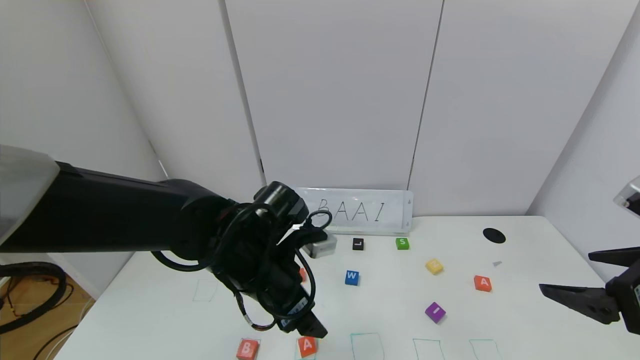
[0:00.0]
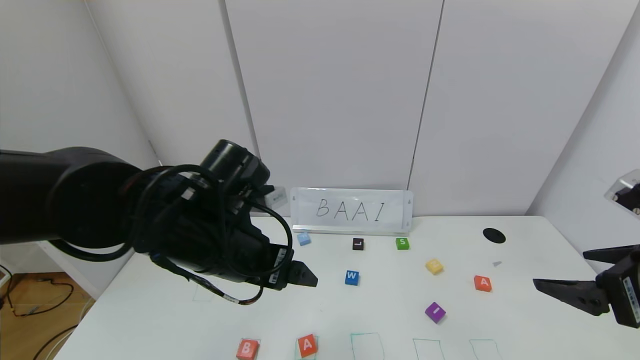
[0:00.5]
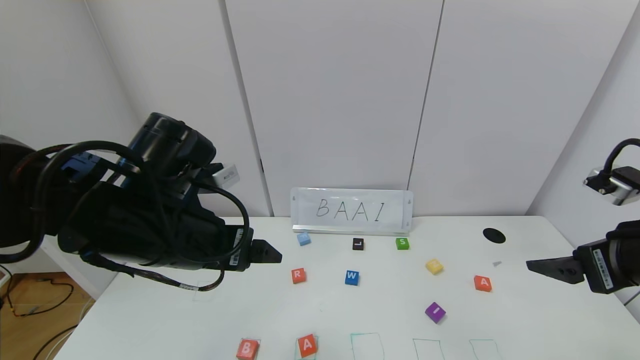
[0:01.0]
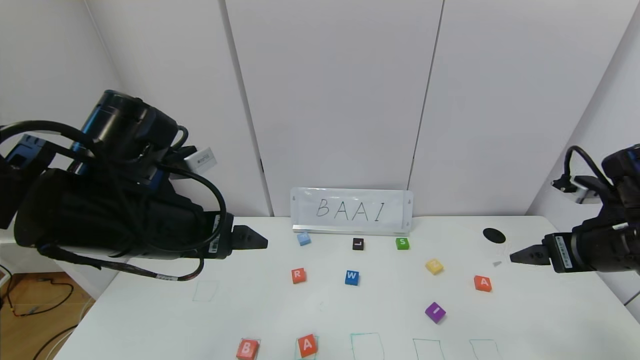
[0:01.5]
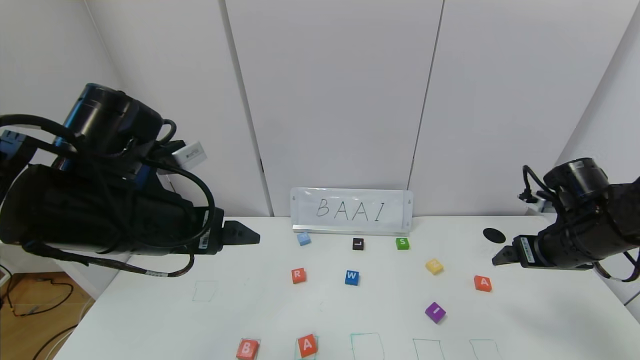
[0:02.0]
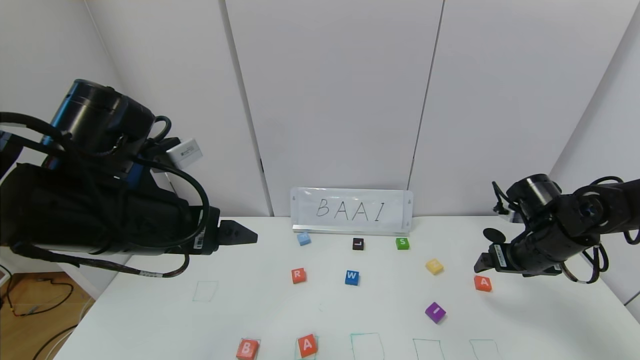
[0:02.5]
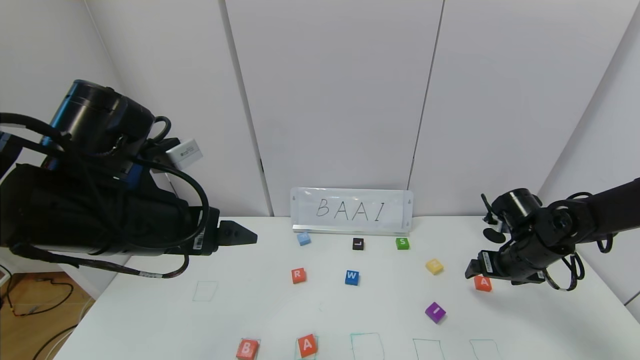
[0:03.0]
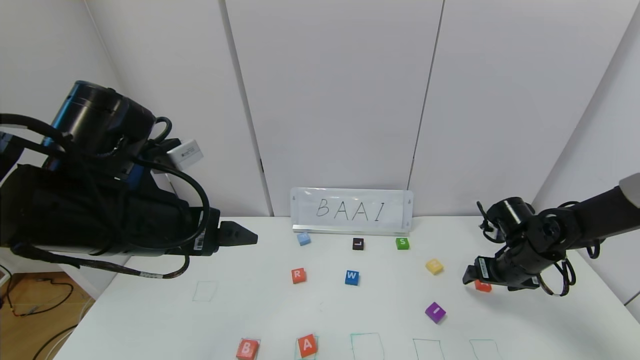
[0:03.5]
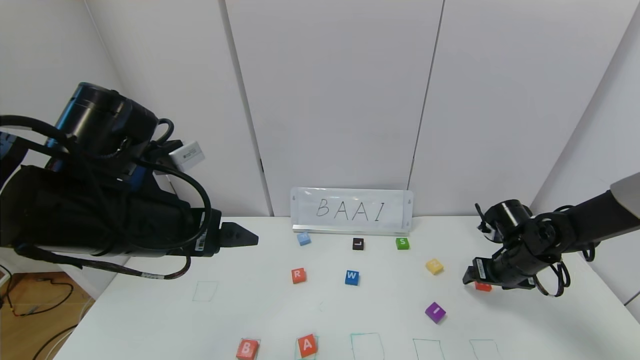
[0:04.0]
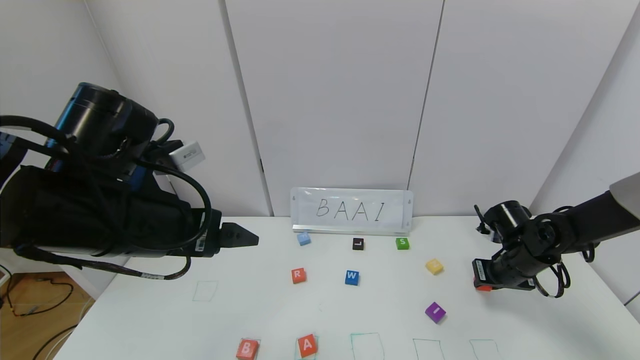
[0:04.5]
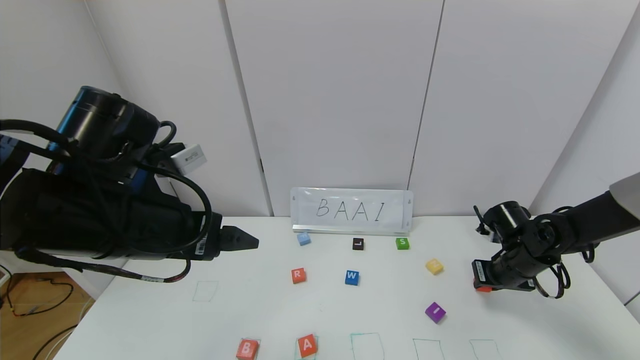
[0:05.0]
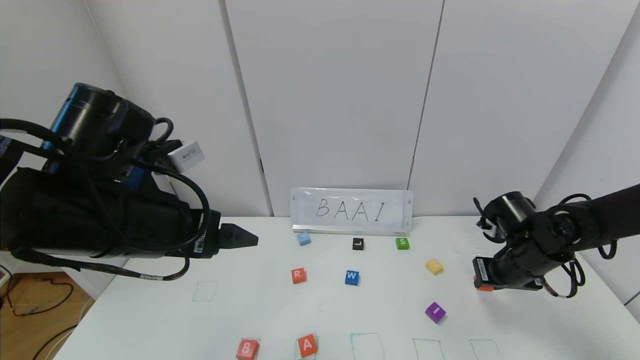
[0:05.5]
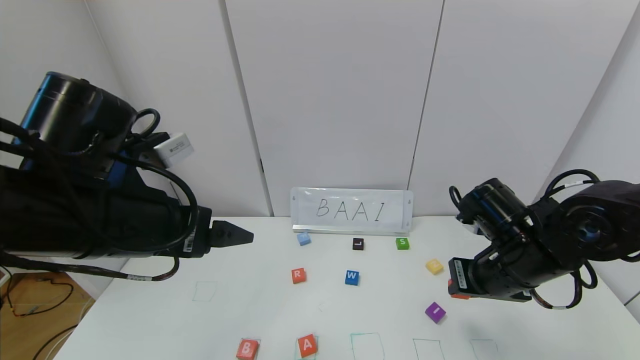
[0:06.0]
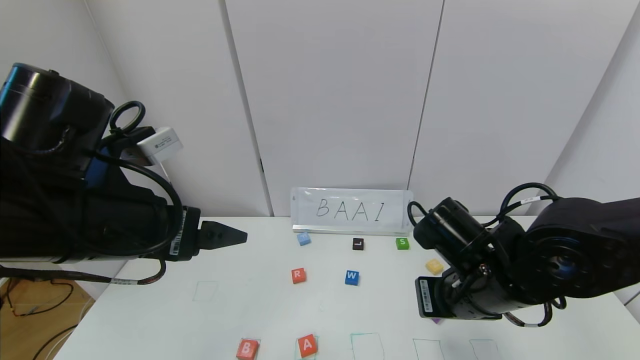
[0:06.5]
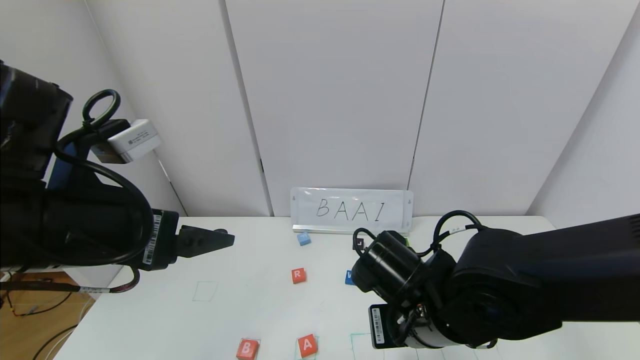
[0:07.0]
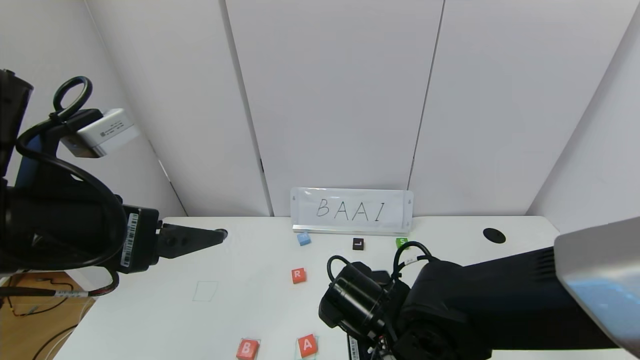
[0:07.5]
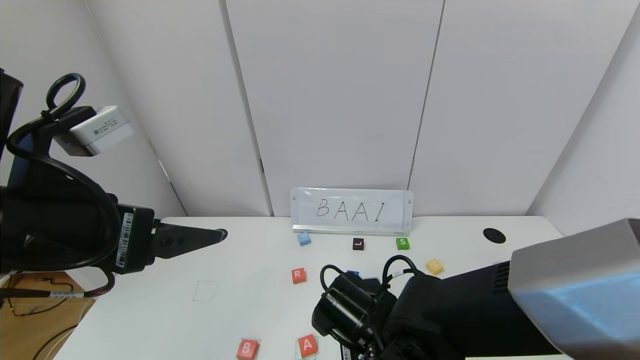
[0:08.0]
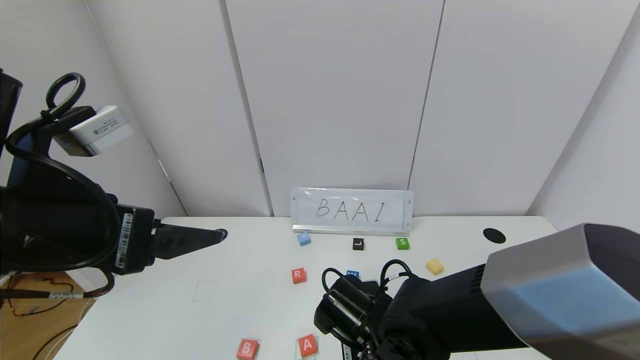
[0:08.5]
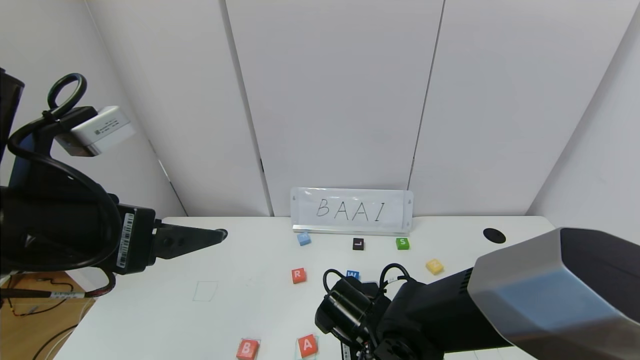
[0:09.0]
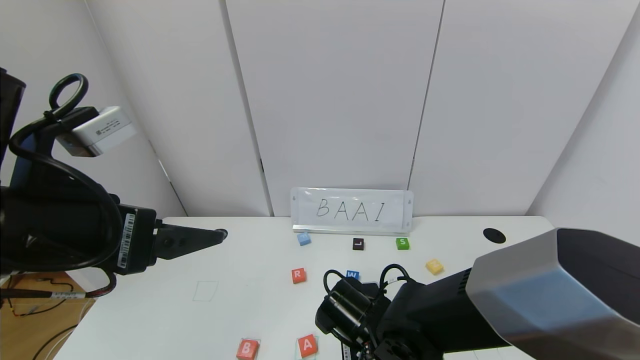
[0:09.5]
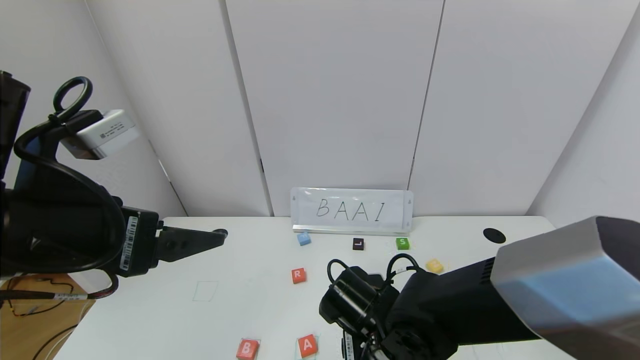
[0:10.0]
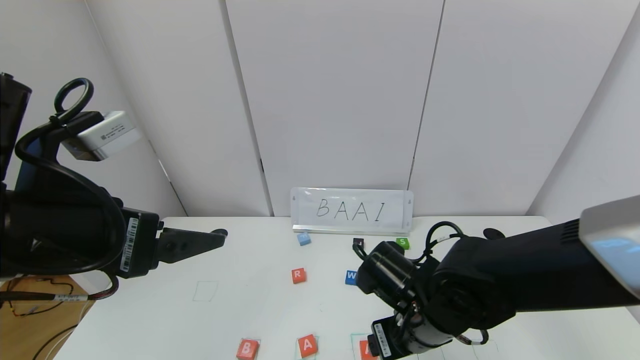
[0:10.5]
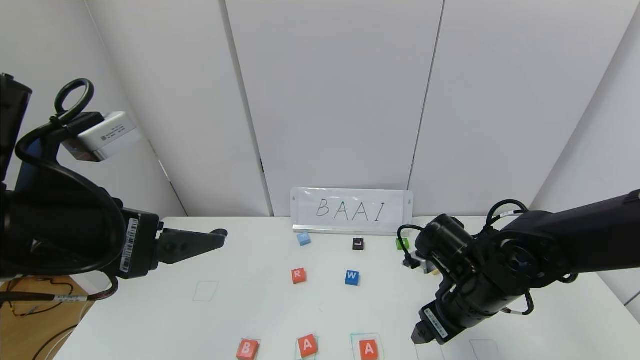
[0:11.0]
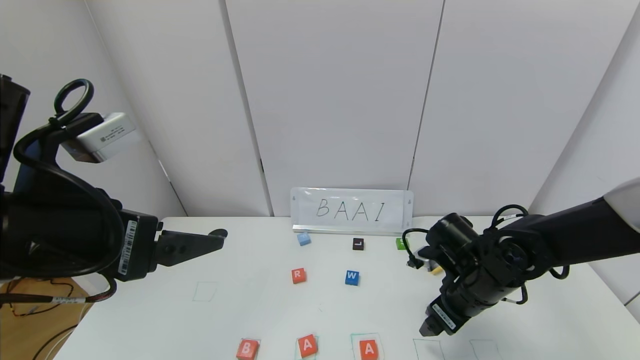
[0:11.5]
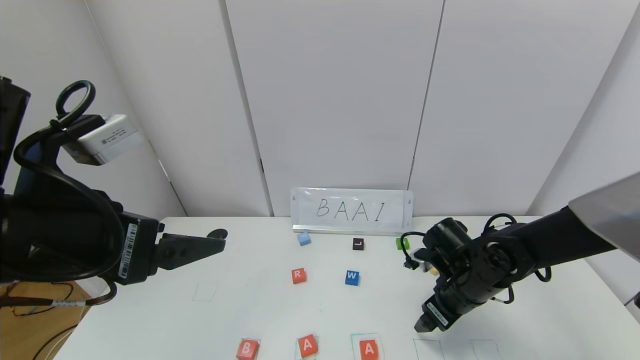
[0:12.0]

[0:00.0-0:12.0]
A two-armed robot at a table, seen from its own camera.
Task of the whole recording: use the gripper to find blocks with the letters b, a, a, and i on the table and arrange them into BAAI, then find r and N and turn the arranged baai into brian.
Step, 0:00.0 to 0:09.5: Place the second block A in the third location.
0:00.0 to 0:02.0: The left gripper shifts some 15 cm upward and to the left. Meanwhile the right gripper travels forward and downward by some 20 cm.
0:02.0 to 0:04.0: The right gripper is displaced downward and forward by approximately 10 cm.
0:04.0 to 0:06.0: The right gripper heads to the left, upward and backward, covering approximately 20 cm, and closes up.
0:06.0 to 0:08.0: The left gripper moves roughly 5 cm. The right gripper moves to the left and downward, roughly 20 cm.
0:08.0 to 0:10.0: The right gripper opens its fingers.
0:10.0 to 0:12.0: The right gripper heads to the right and forward, covering approximately 15 cm.

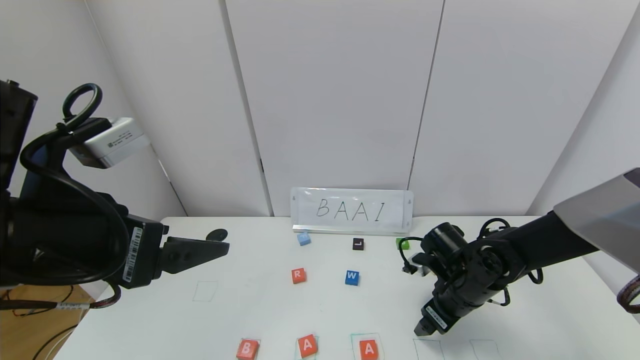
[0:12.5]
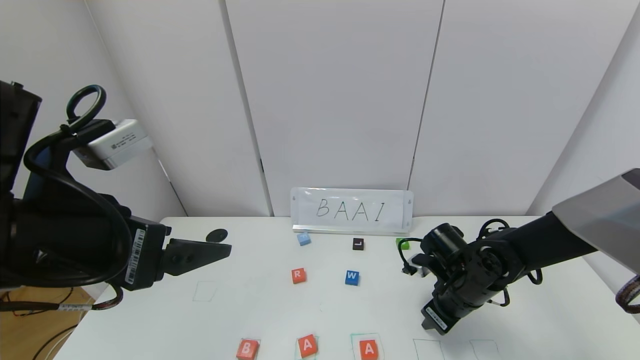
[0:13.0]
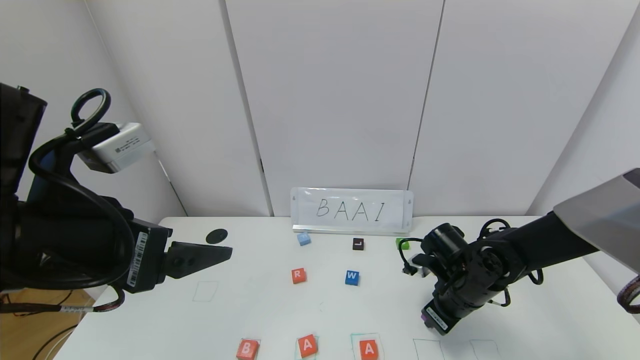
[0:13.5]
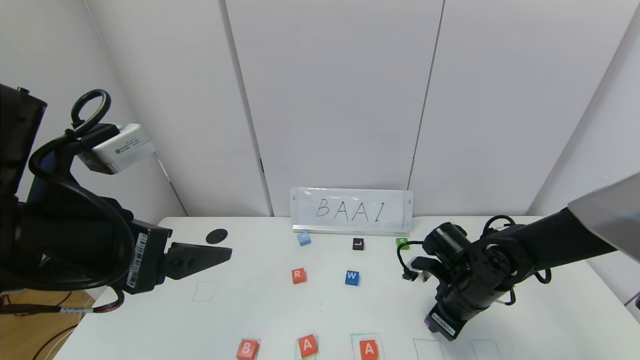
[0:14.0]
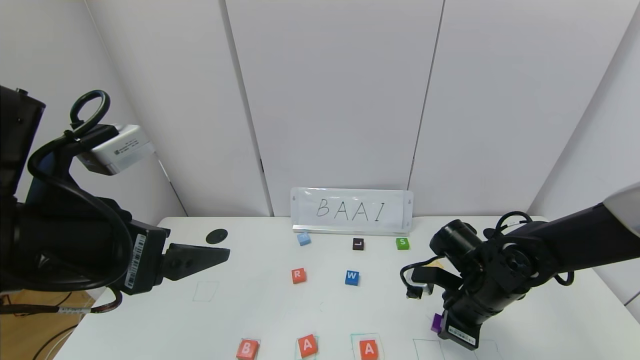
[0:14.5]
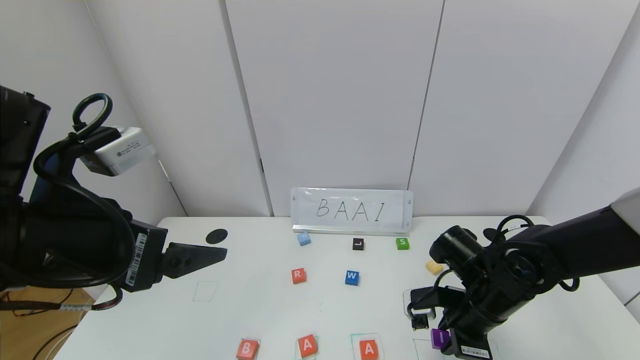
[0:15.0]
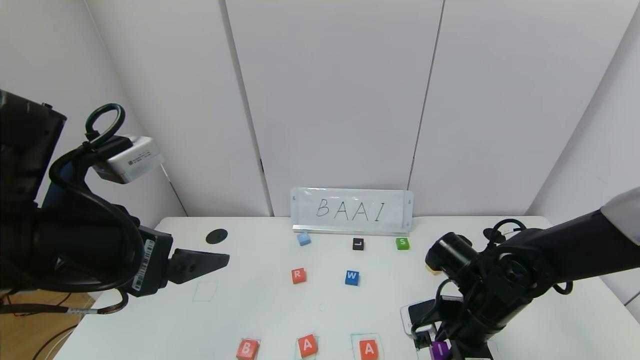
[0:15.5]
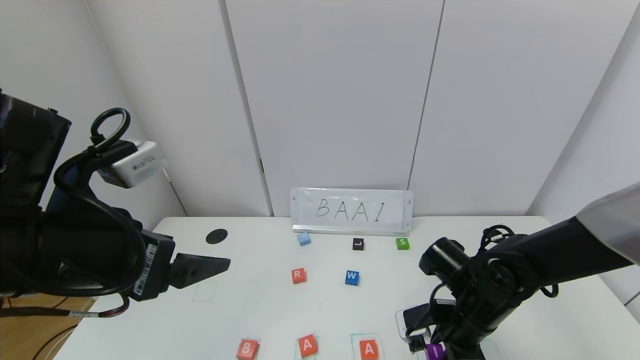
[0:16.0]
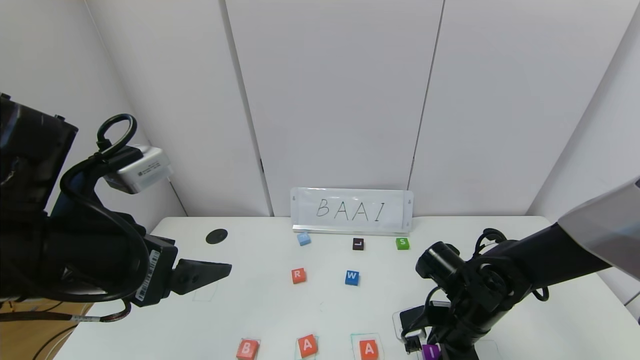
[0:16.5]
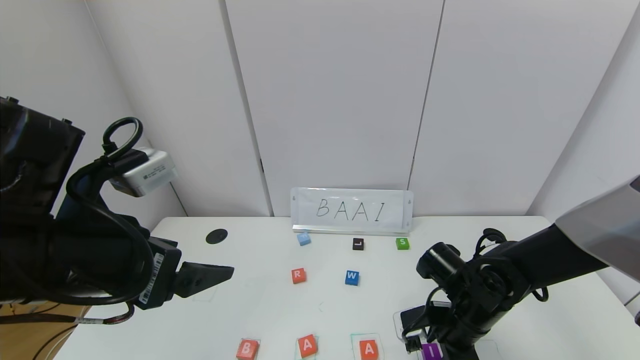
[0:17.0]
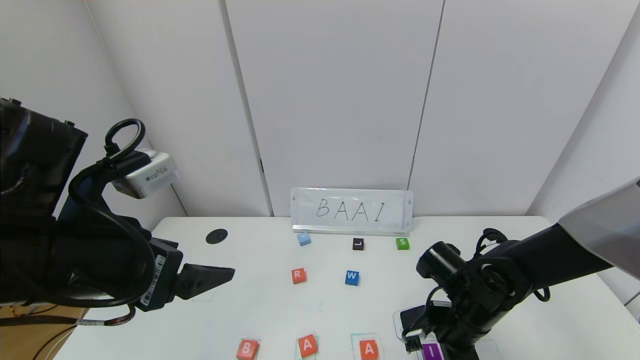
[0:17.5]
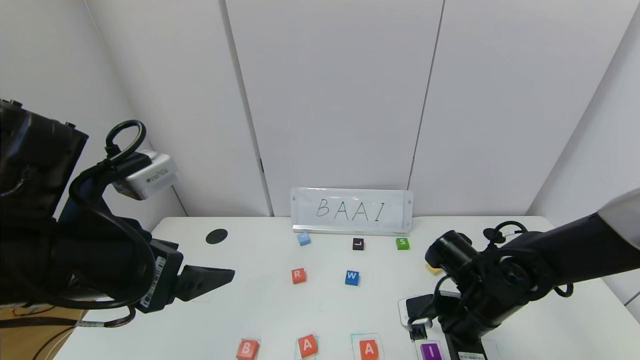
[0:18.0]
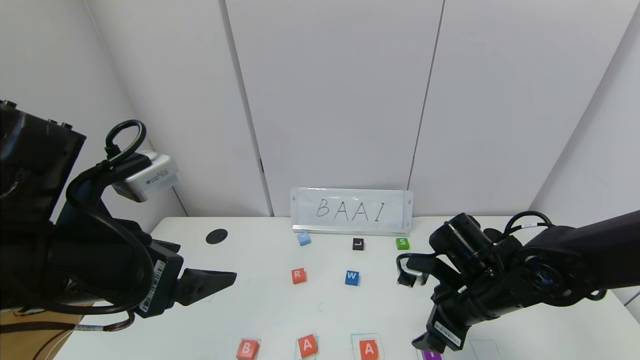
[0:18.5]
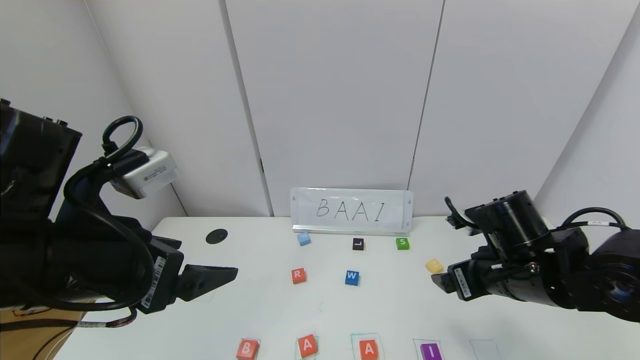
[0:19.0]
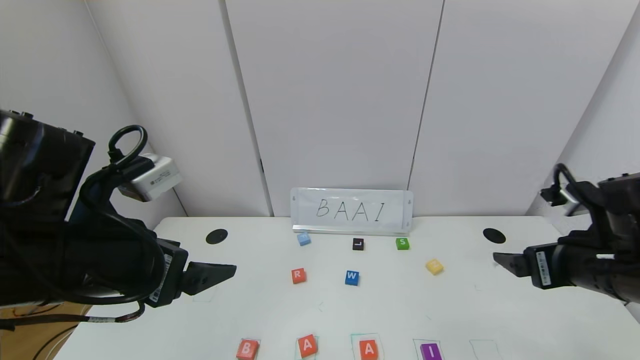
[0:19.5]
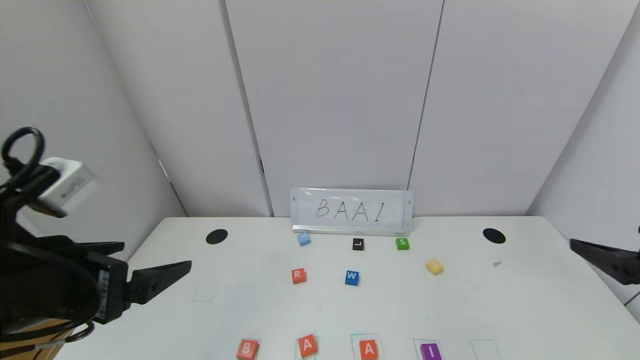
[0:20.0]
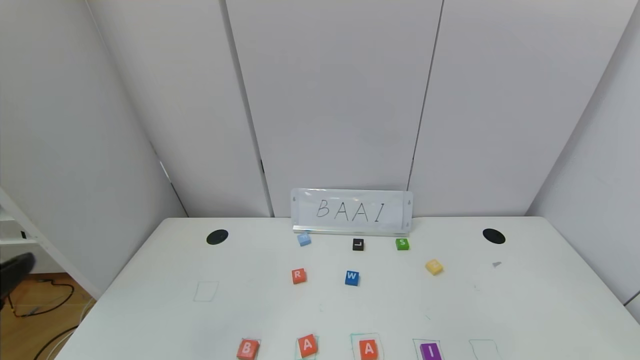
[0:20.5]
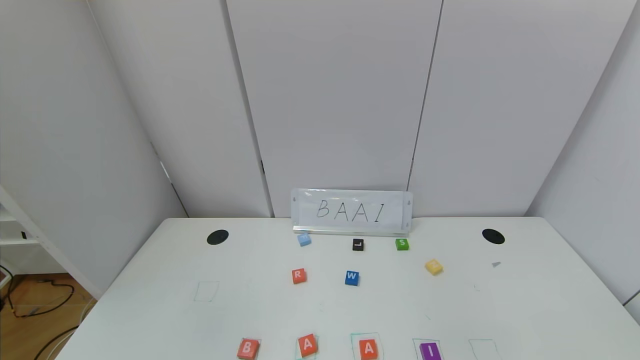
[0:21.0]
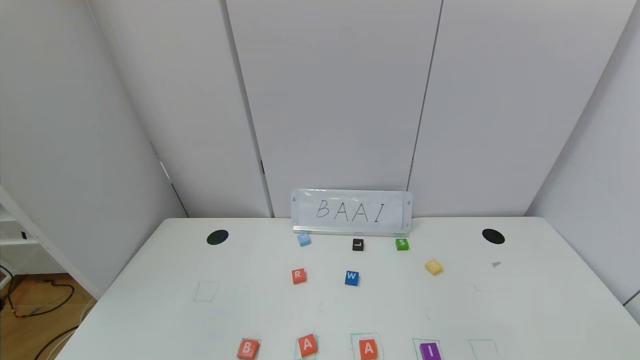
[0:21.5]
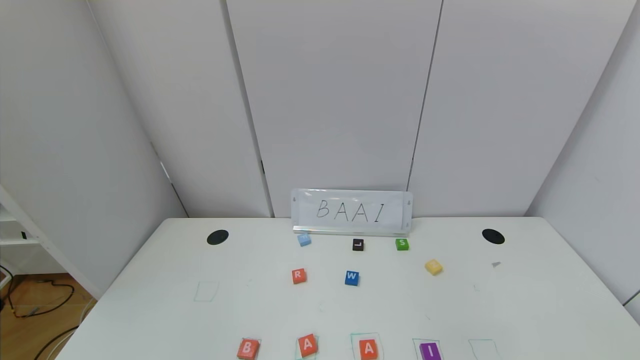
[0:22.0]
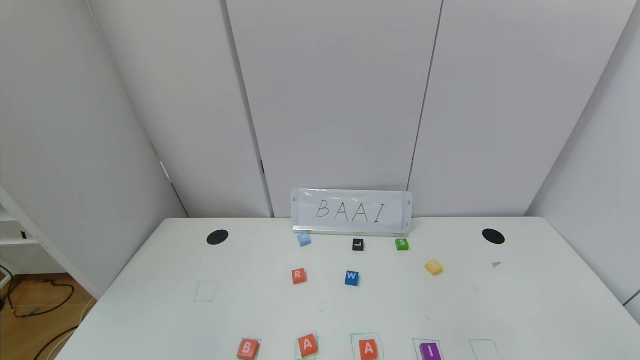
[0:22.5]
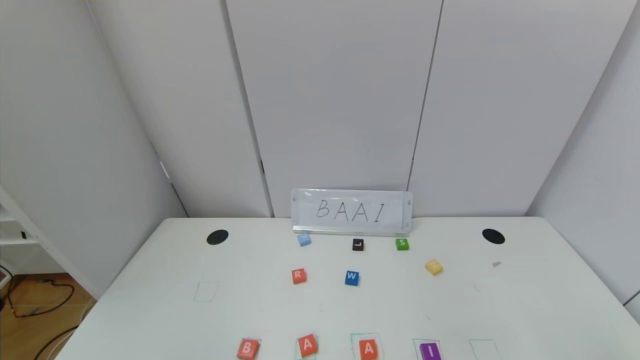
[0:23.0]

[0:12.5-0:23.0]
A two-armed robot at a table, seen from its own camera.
Task of the whole recording: use the gripper to find blocks with the letters b, a, a, and i on the table and arrange them into BAAI, then find r and N and turn the arranged baai into brian.
Step, 0:12.5 to 0:17.0: Place the block I in the fourth location.
0:12.5 to 0:14.5: The right gripper closes up.
0:16.5 to 0:19.0: The right gripper heads upward, covering some 10 cm, and opens.
0:19.0 to 0:21.0: The left gripper moves backward and to the left, about 25 cm. Meanwhile the right gripper is displaced backward by about 35 cm.
